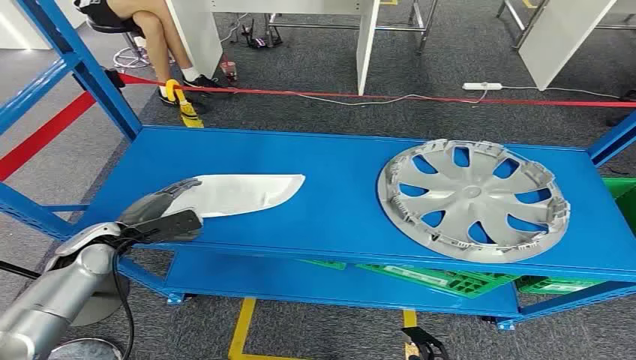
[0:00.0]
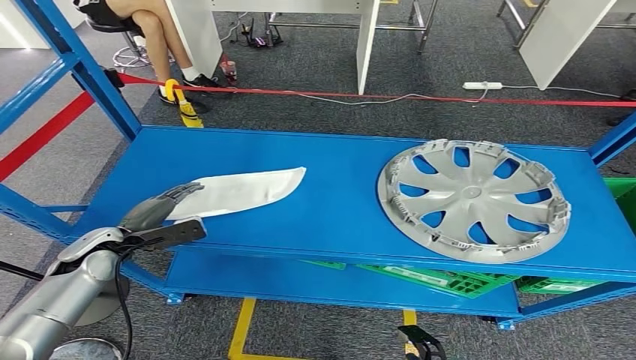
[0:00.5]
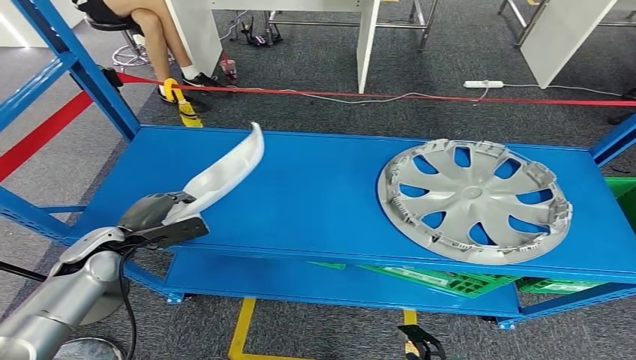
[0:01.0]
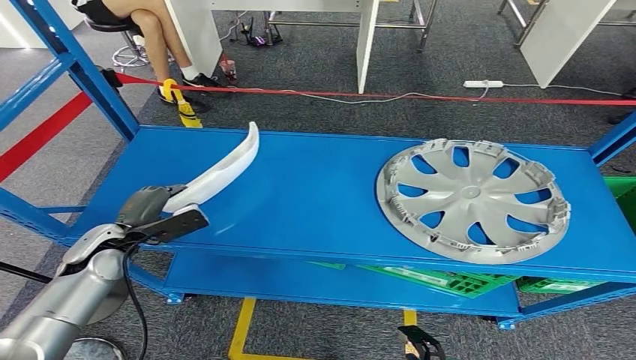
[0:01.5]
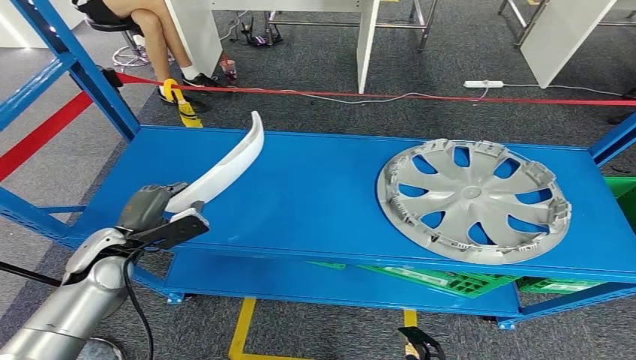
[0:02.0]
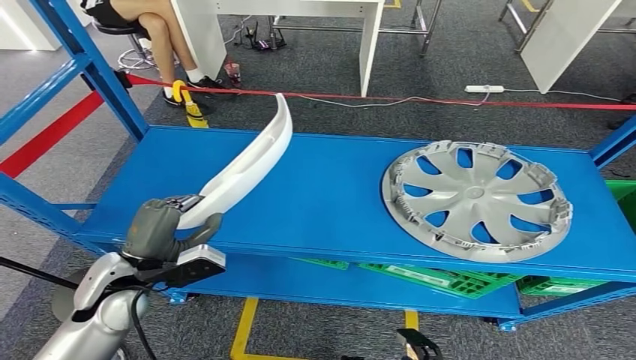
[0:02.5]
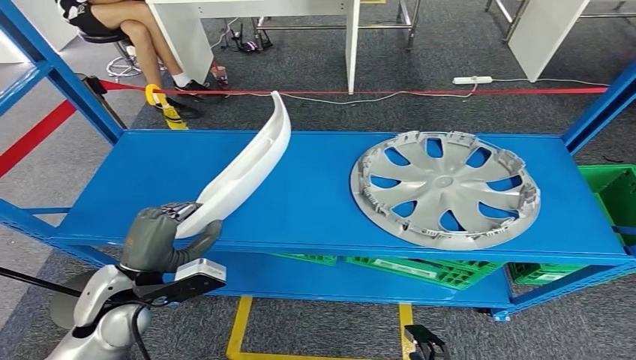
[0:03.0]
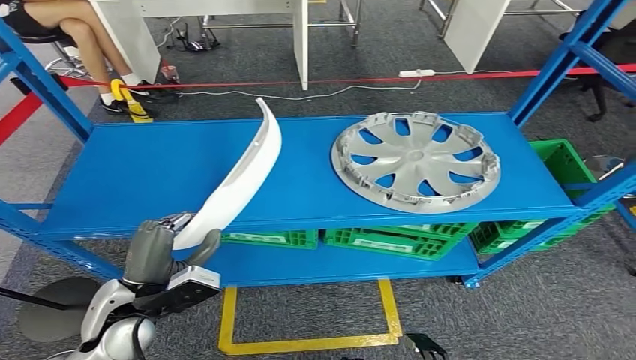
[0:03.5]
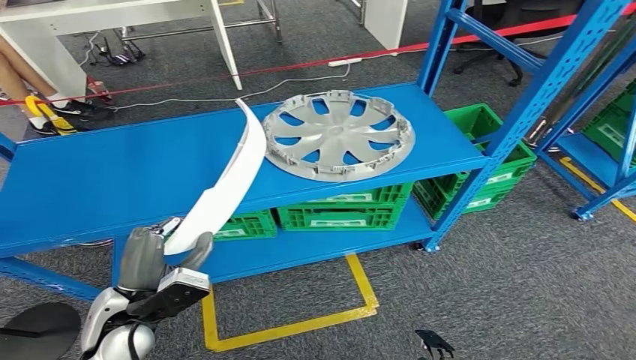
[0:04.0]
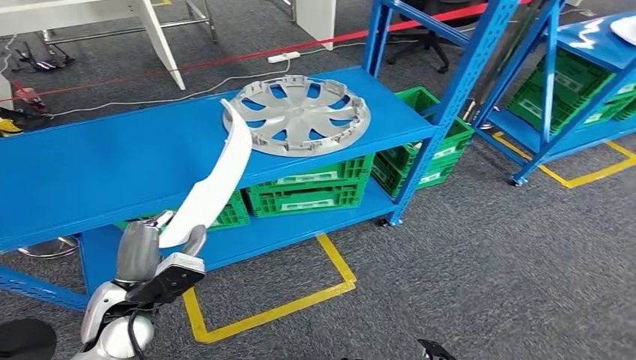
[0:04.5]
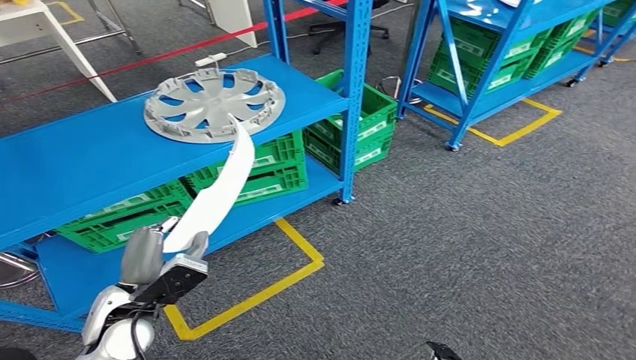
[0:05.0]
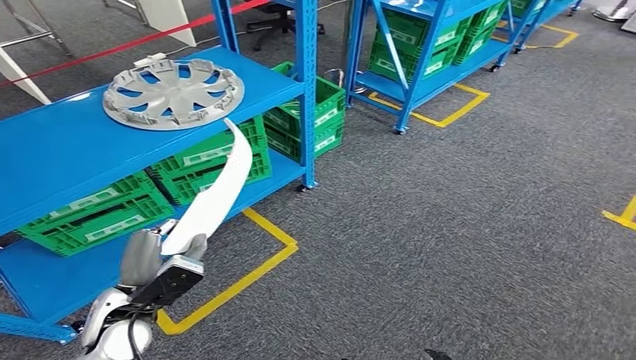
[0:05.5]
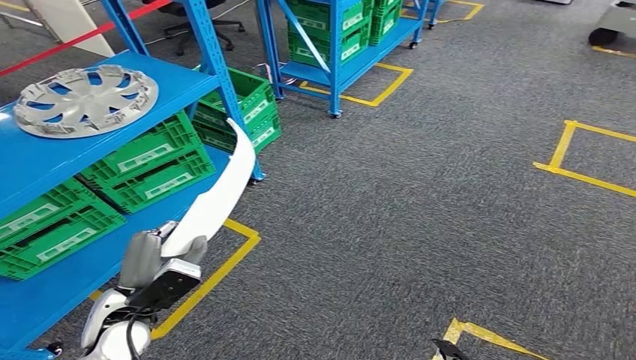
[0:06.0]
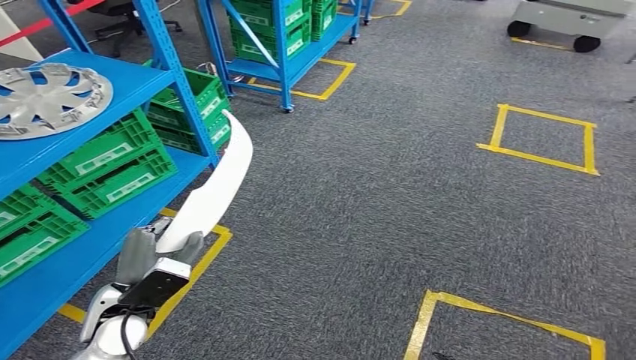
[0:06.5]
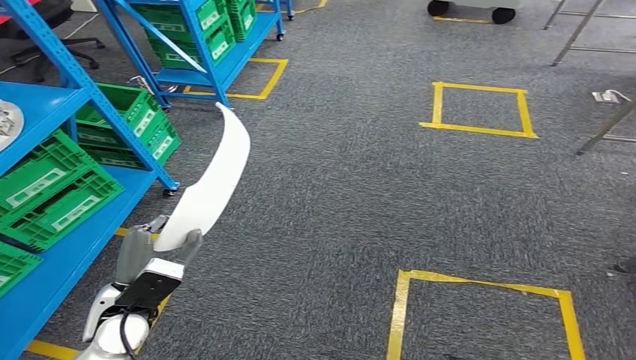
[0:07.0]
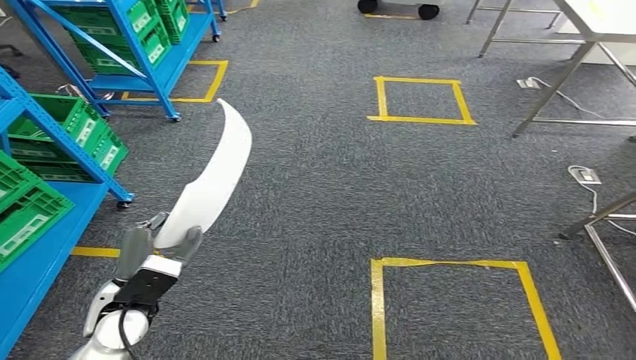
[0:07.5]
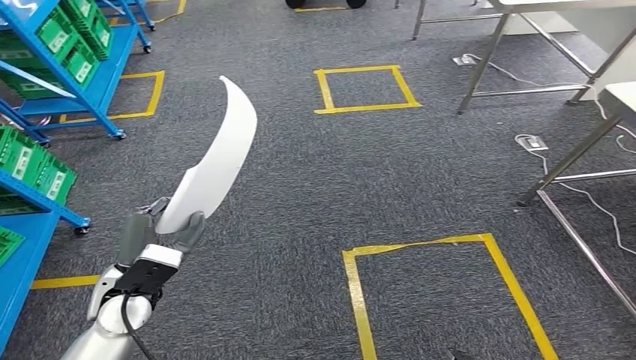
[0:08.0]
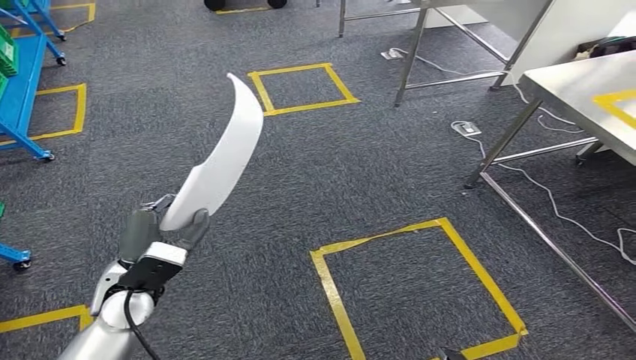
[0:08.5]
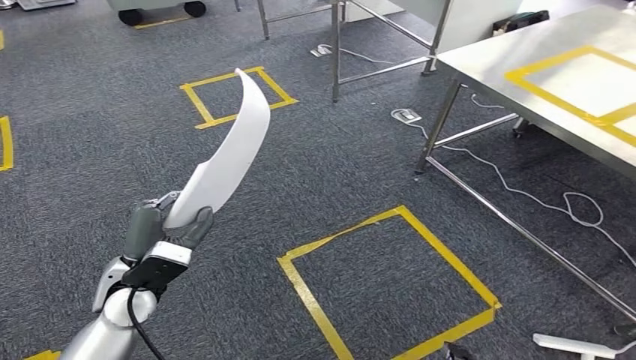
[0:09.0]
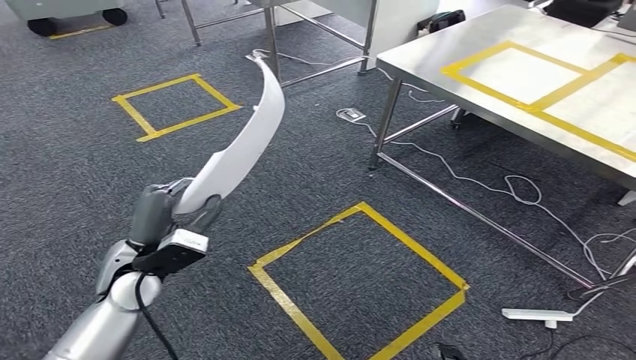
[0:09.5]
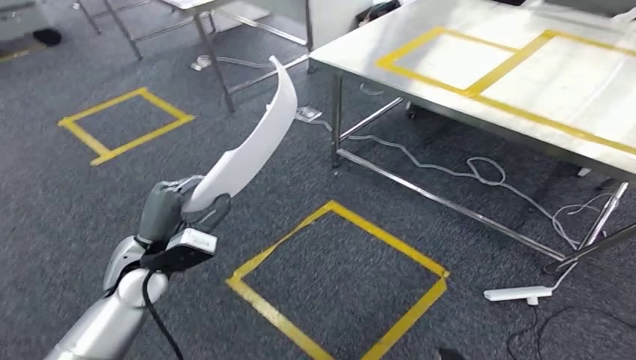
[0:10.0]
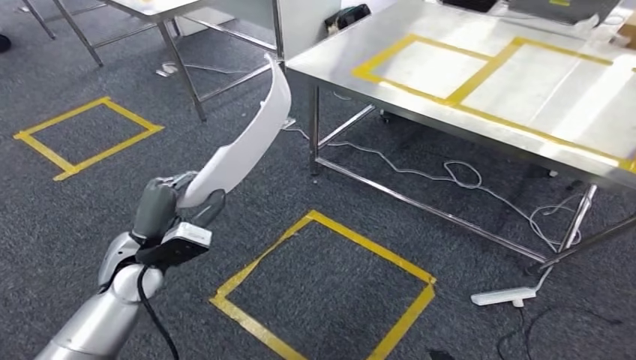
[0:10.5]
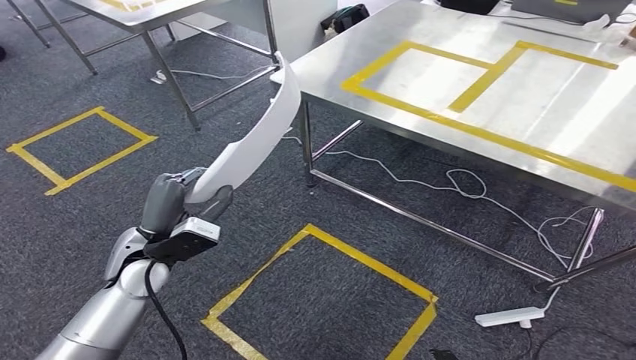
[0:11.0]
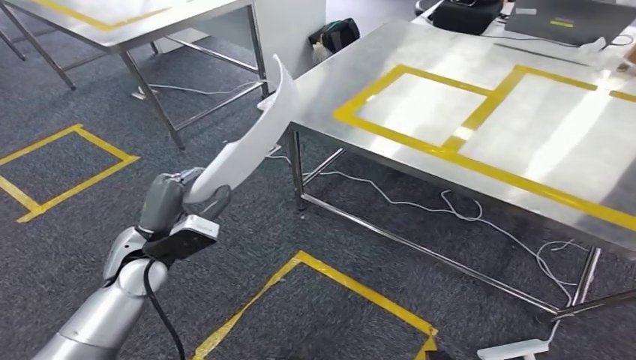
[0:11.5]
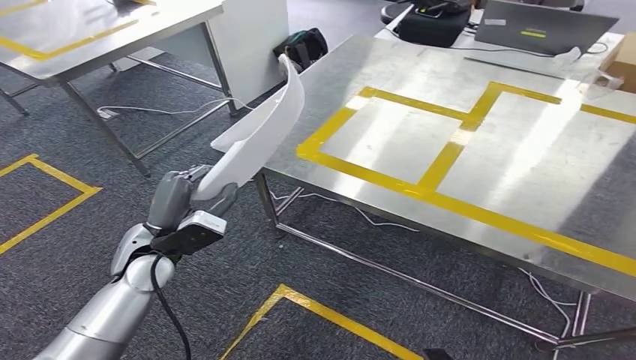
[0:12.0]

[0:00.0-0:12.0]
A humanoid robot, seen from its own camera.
Step, 0:00.0 to 0:03.5: Pick up the small component from the shelf.
Step, 0:04.5 to 0:11.5: Move the small component to the workbench.

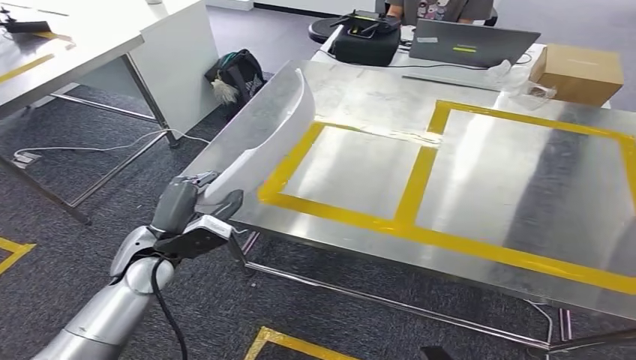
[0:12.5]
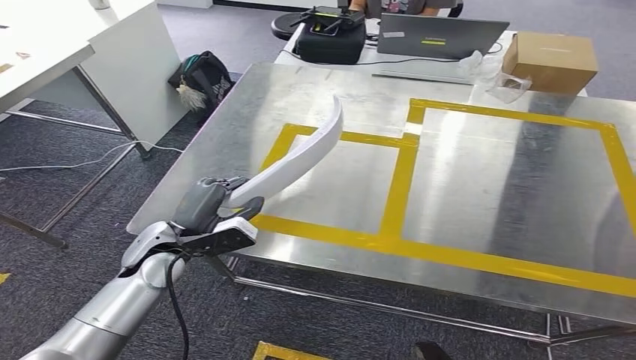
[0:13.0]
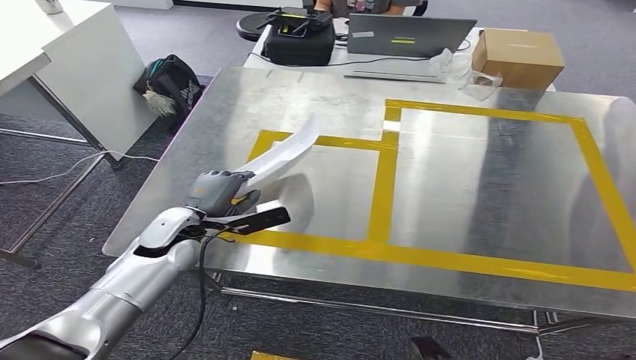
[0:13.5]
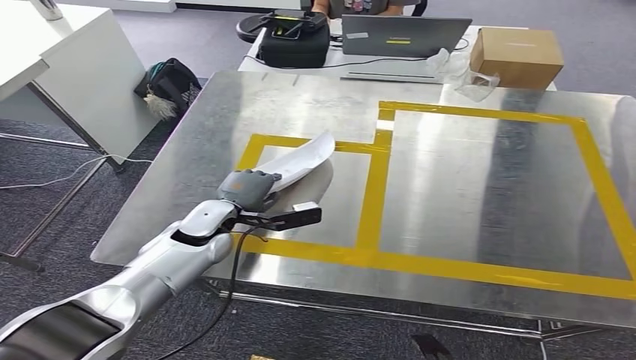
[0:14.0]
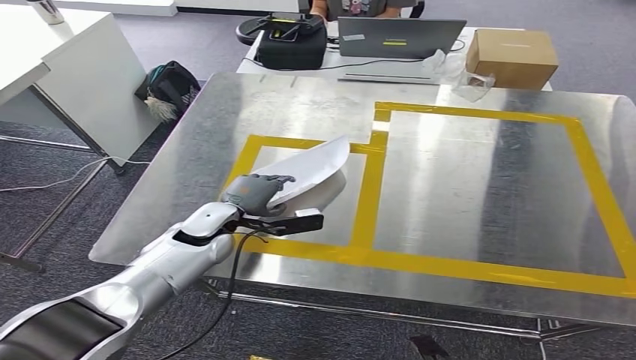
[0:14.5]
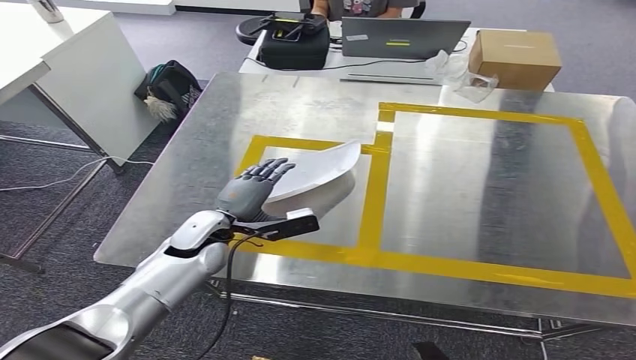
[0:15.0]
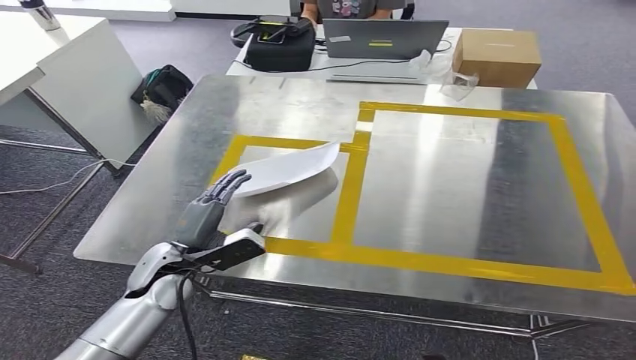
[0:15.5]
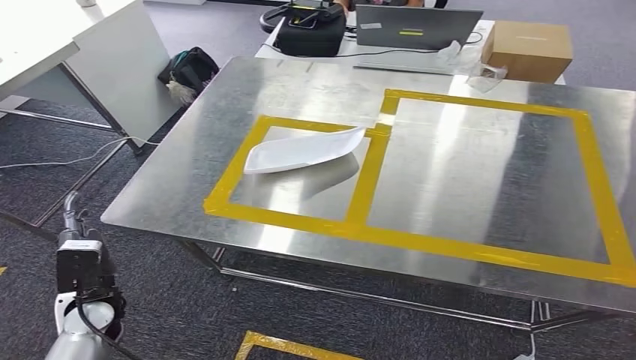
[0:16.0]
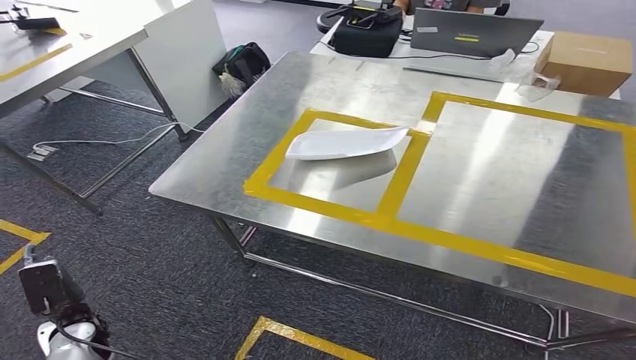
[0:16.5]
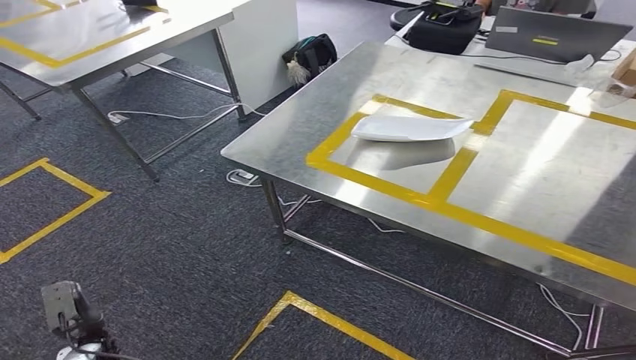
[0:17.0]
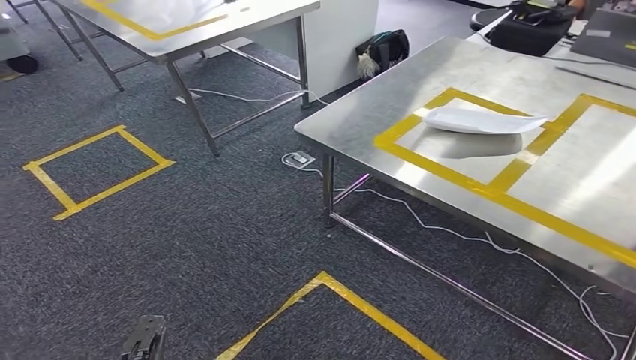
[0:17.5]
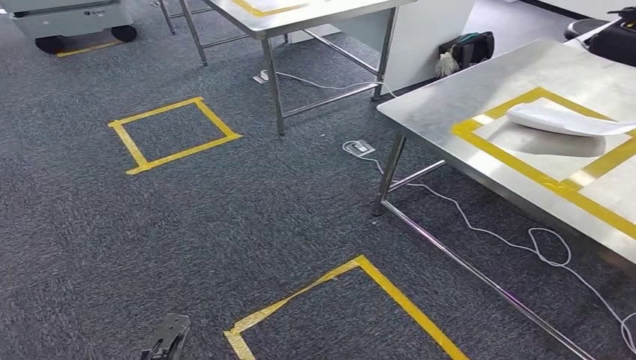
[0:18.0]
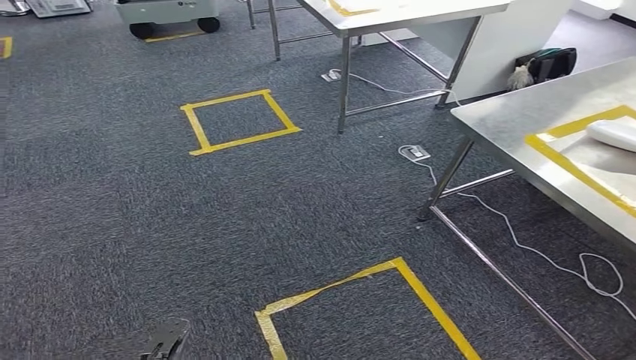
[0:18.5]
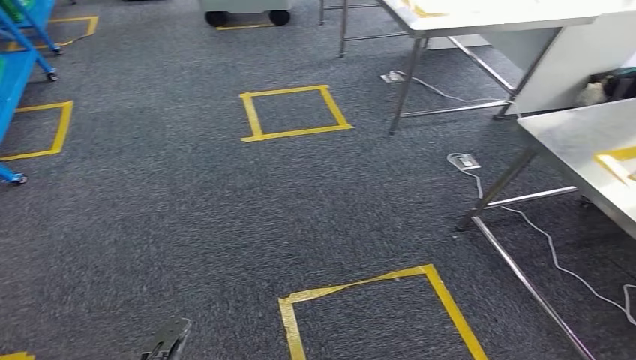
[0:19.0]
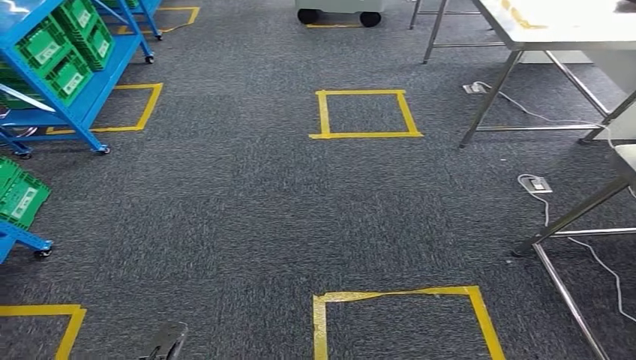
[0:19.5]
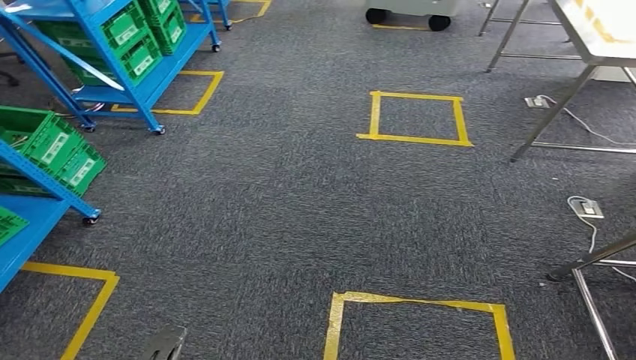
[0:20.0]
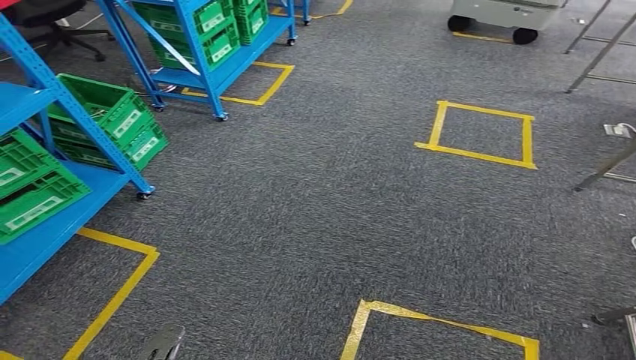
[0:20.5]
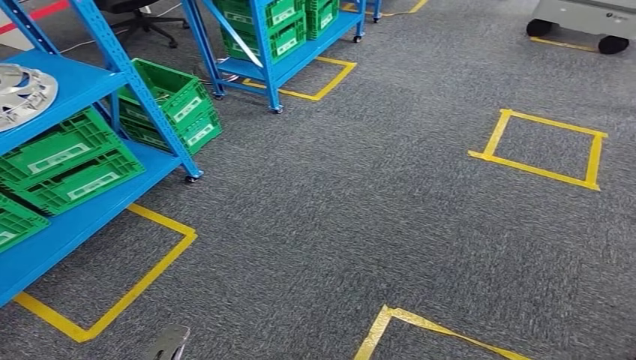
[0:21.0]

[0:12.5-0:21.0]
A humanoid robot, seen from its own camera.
Step, 0:12.5 to 0:15.5: Insert the small component into the corresponding slot on the workbench.
